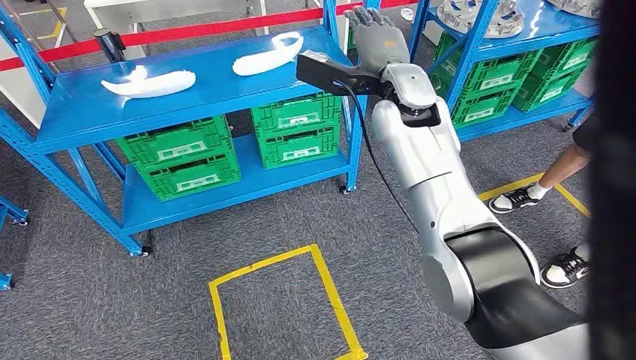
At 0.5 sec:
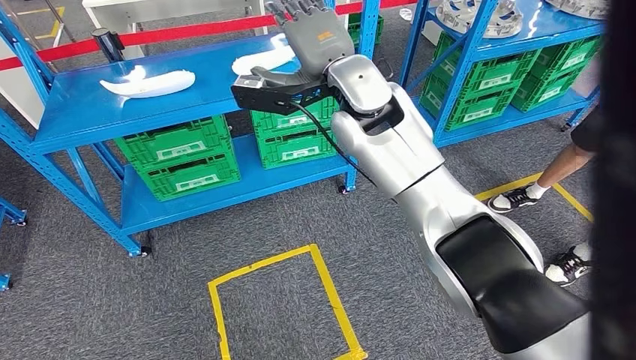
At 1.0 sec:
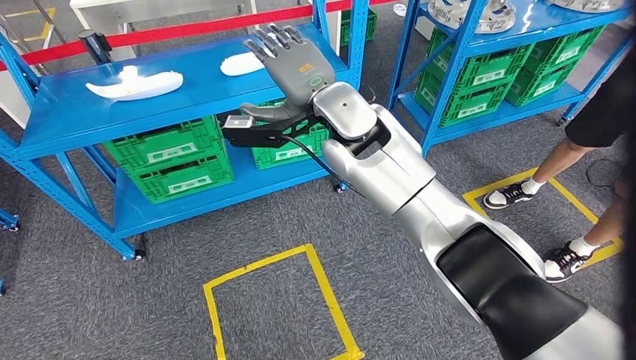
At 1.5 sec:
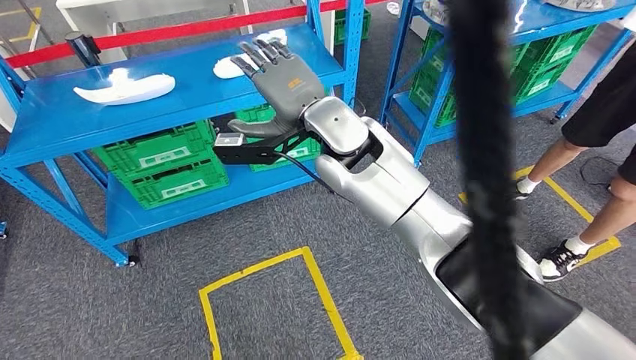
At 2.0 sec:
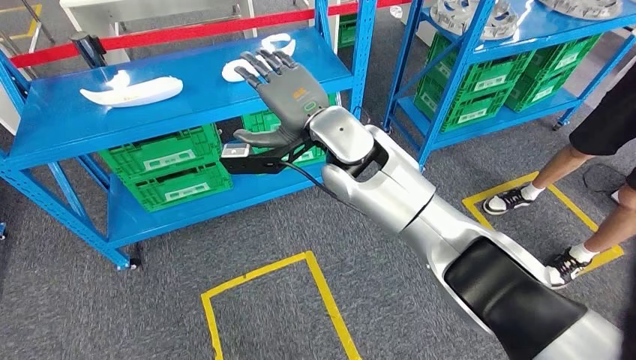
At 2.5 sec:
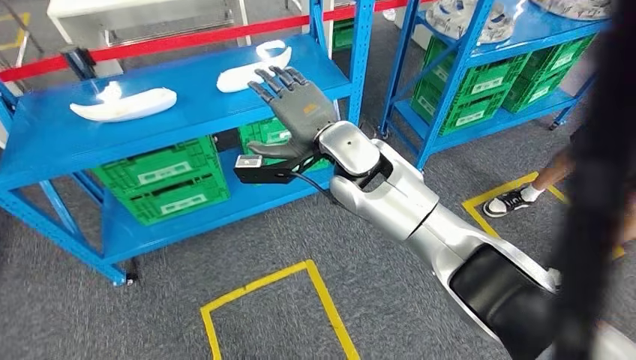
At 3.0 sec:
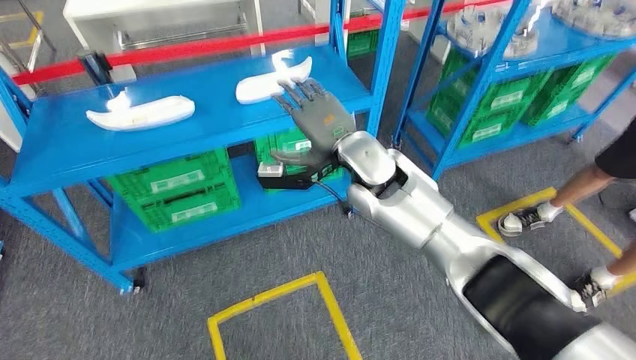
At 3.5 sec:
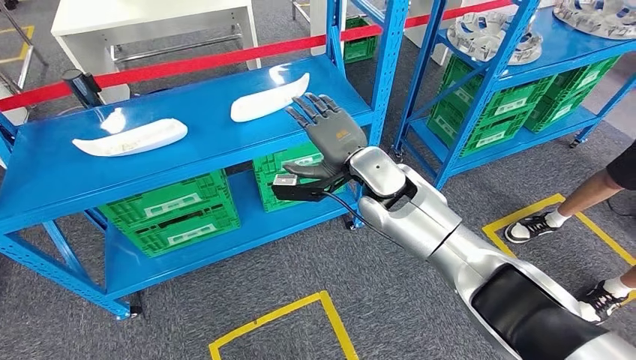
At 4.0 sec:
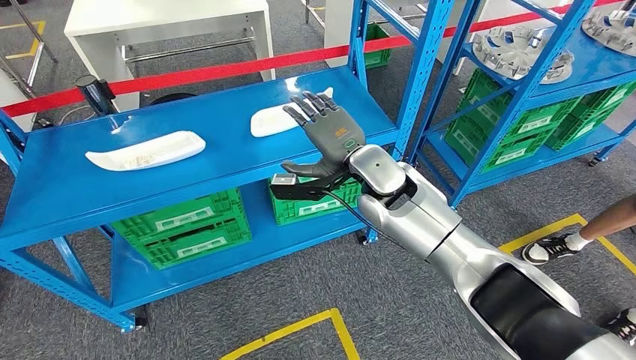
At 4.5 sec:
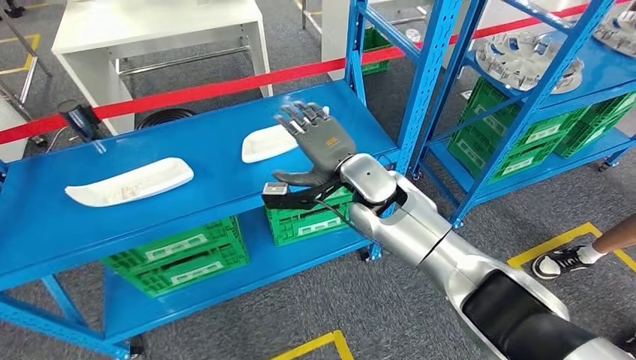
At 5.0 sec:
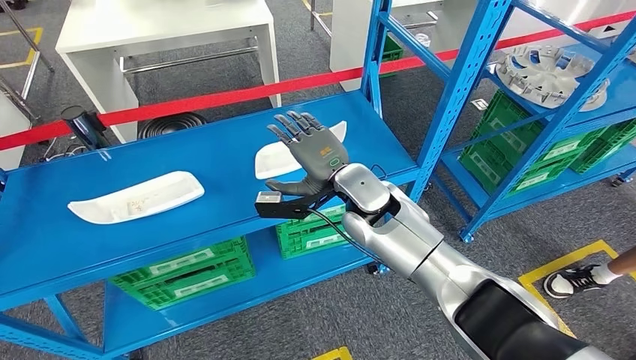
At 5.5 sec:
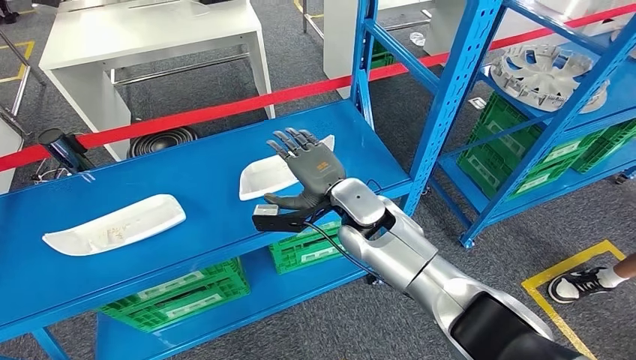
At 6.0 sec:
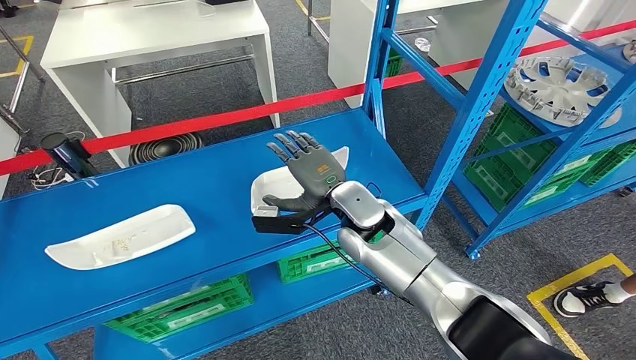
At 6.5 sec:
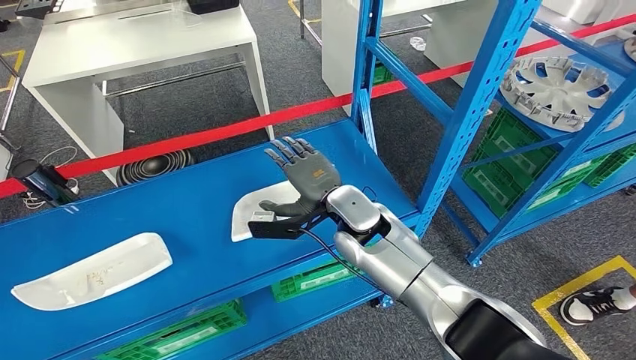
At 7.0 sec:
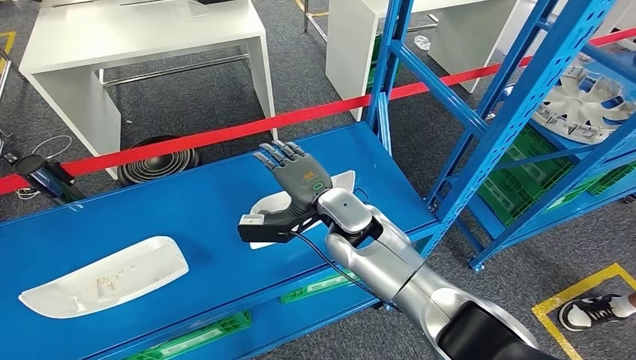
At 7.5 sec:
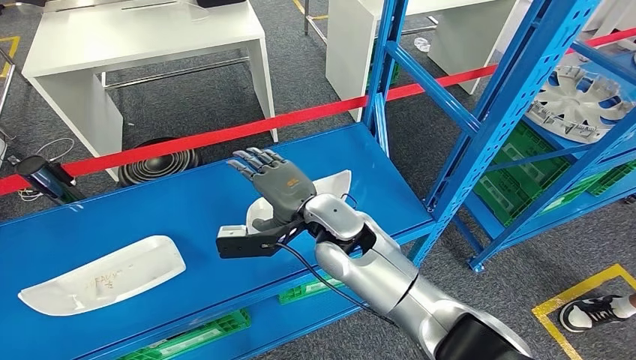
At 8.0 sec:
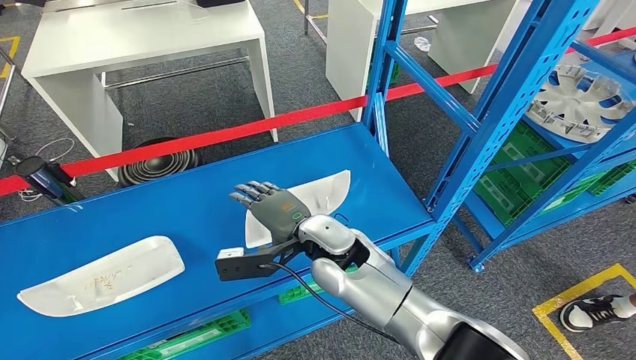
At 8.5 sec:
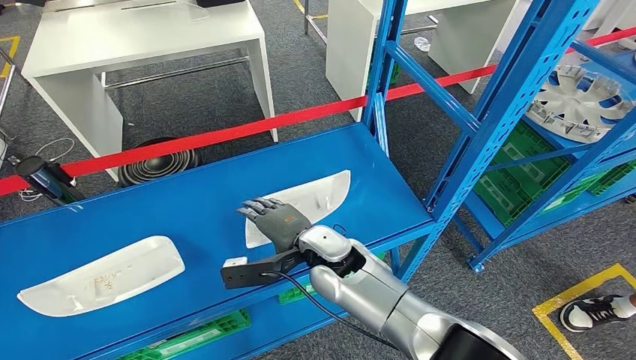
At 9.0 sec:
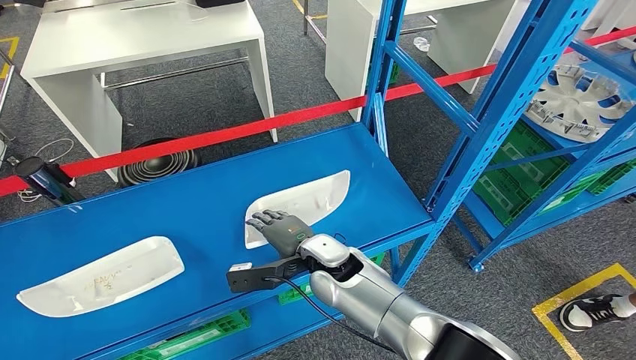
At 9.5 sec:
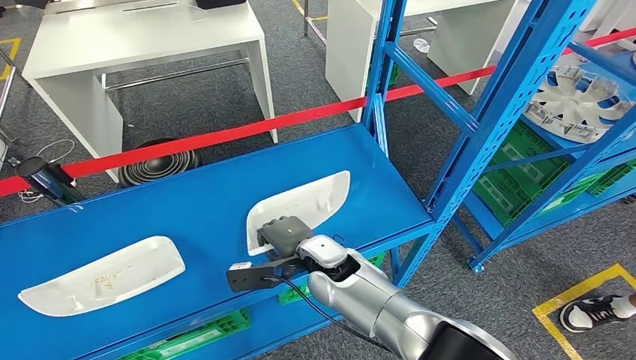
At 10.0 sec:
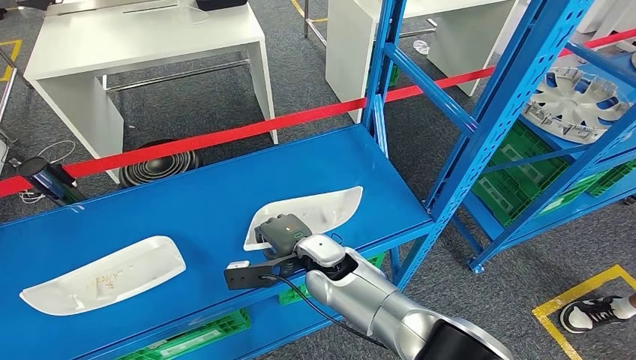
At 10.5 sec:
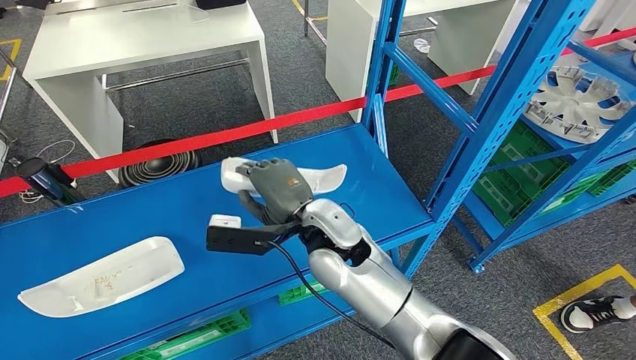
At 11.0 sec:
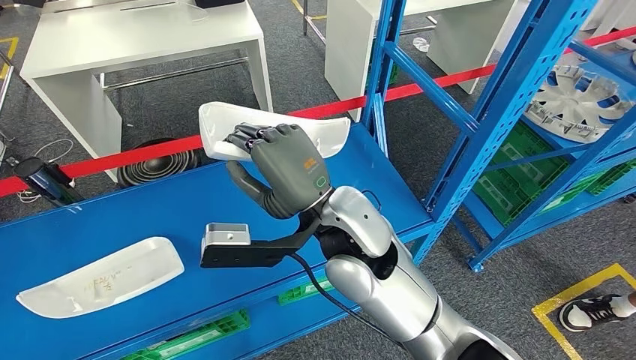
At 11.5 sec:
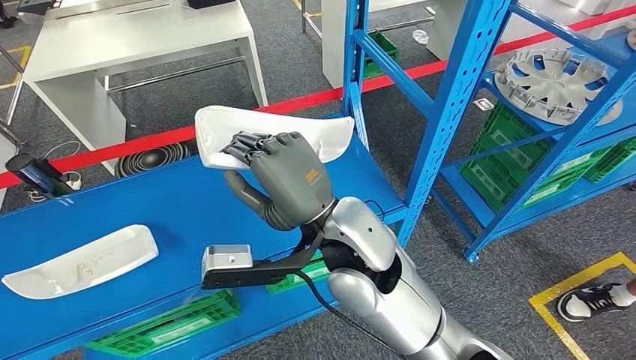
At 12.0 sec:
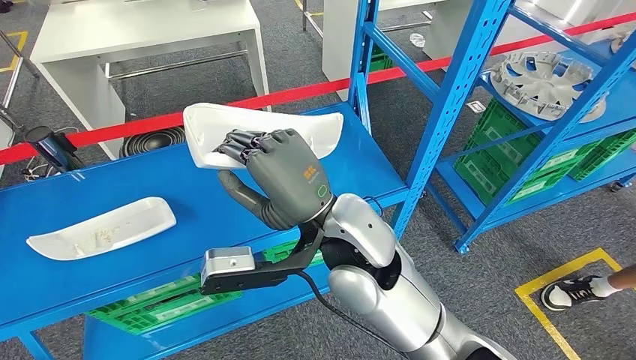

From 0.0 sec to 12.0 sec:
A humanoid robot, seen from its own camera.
Step, from 0.0 sec to 12.0 sec: Pick up the small parts from the shelf.
From 8.0 sec to 10.0 sec: The right hand is displaced downward by approximately 5 cm.

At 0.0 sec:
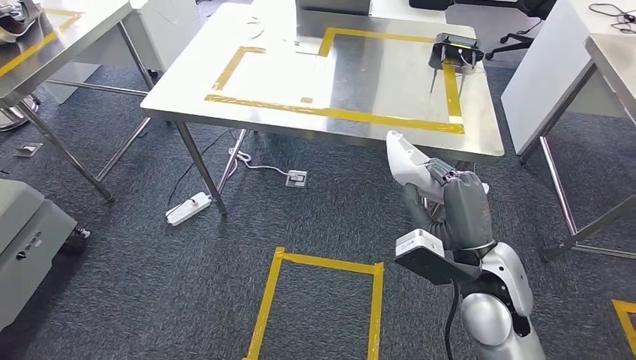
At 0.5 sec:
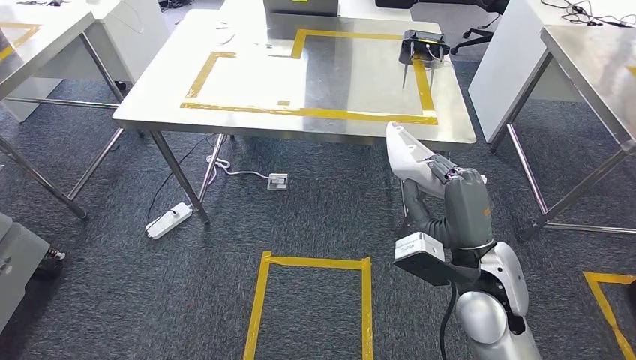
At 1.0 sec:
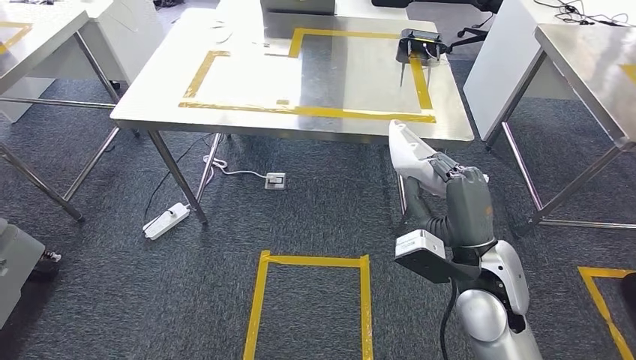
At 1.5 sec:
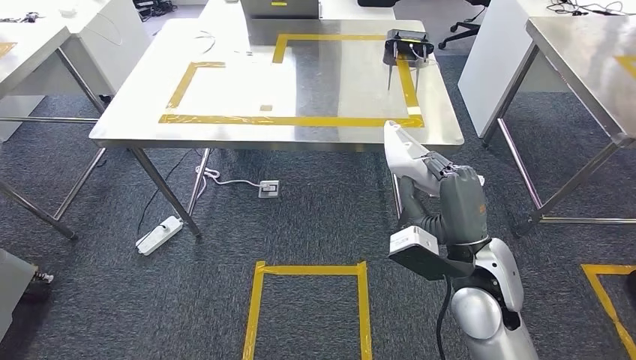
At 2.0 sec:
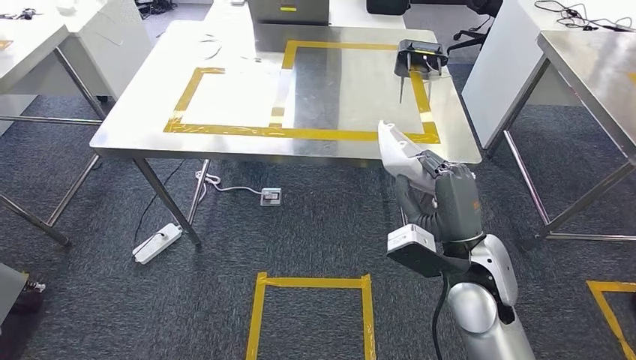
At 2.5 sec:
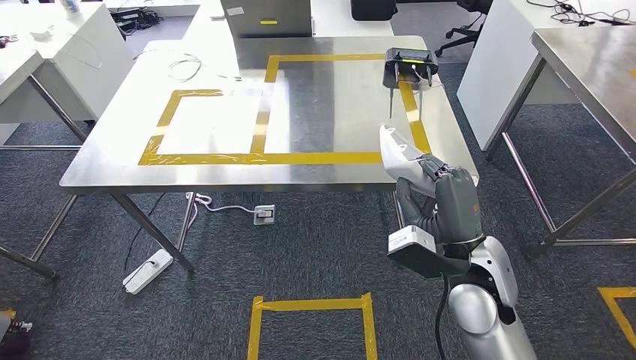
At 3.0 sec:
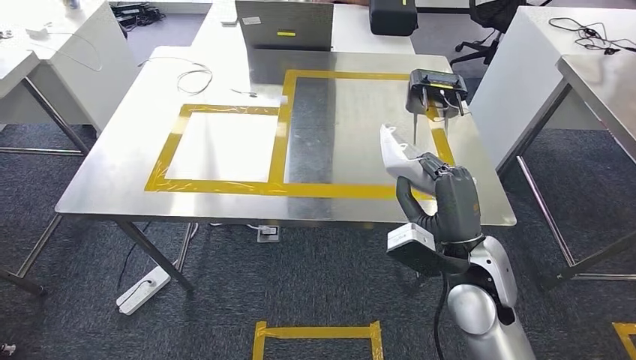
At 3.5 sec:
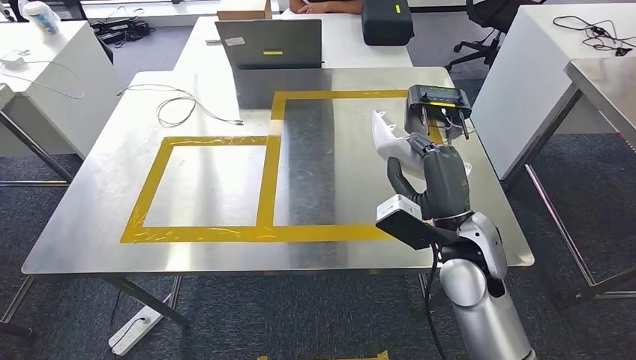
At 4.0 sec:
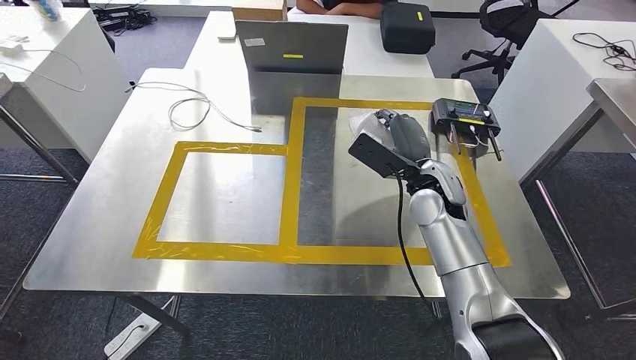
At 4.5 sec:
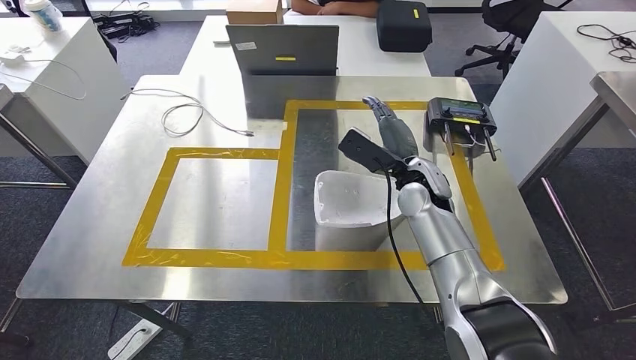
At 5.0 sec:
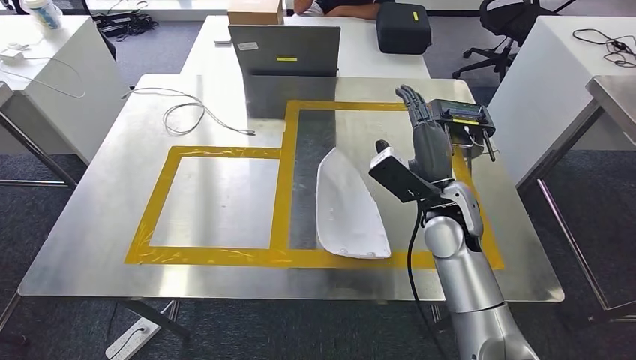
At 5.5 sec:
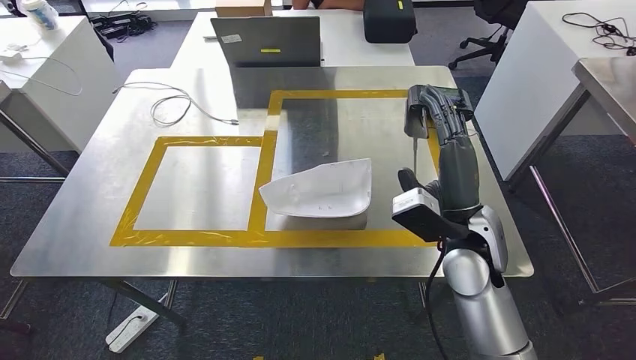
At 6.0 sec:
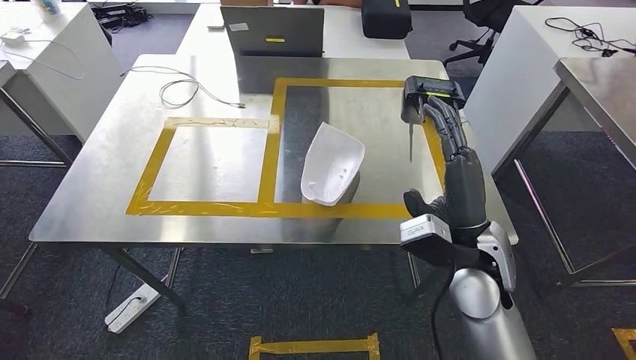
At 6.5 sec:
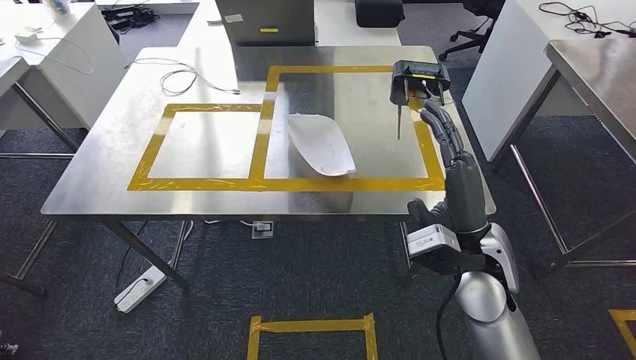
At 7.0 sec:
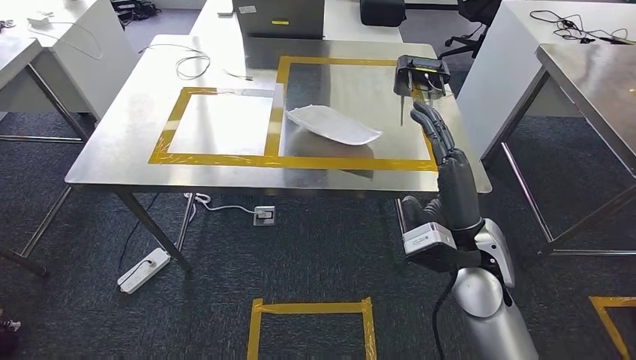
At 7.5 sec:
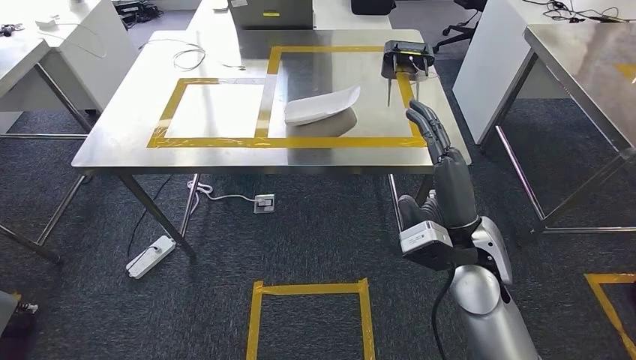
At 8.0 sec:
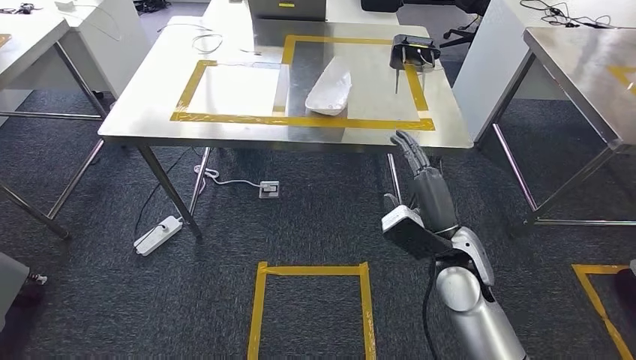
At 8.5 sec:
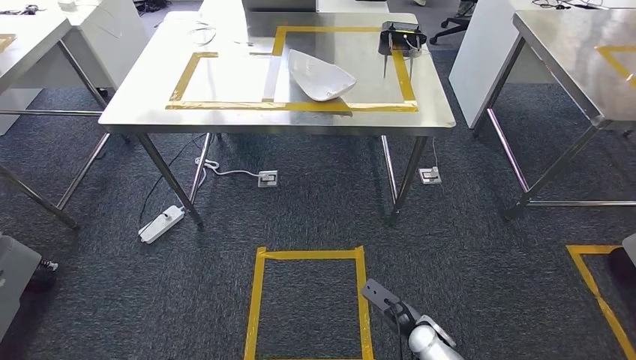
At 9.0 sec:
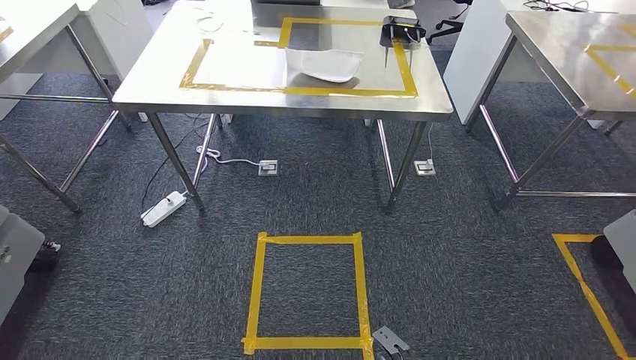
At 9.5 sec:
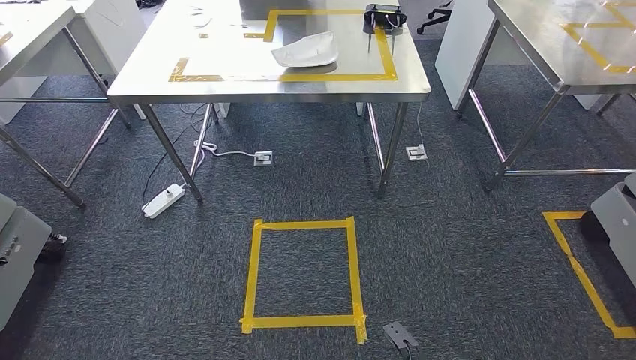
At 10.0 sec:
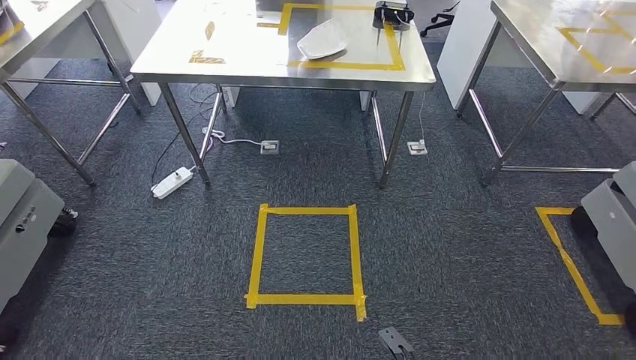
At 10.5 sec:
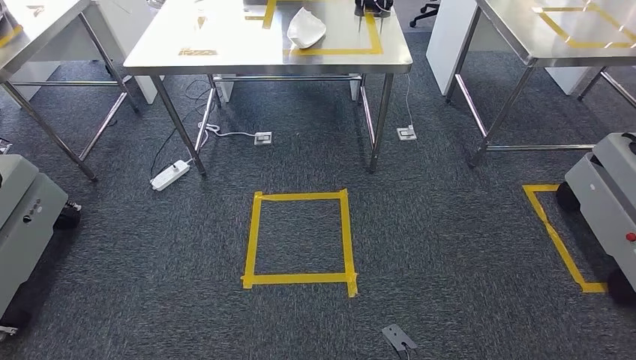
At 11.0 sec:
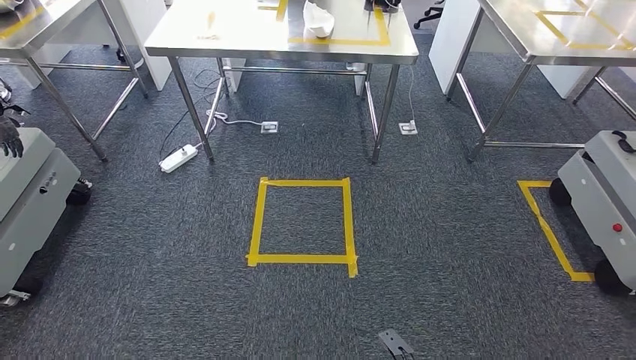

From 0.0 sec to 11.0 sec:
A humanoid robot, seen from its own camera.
Step, from 0.5 sec to 5.0 sec: Insert the small parts into the corresponding slots on the workbench.
